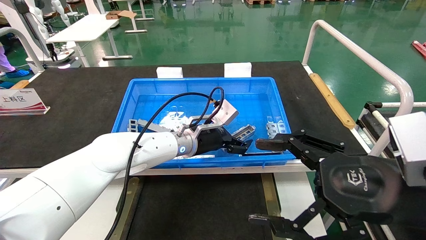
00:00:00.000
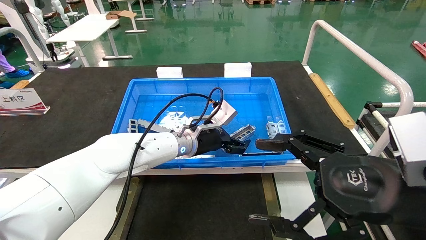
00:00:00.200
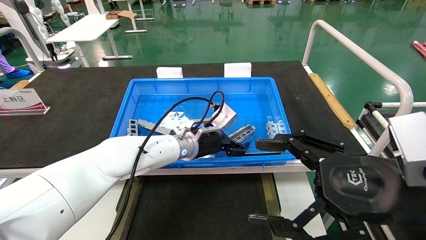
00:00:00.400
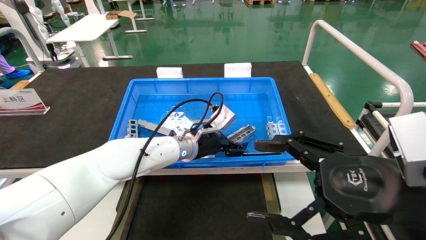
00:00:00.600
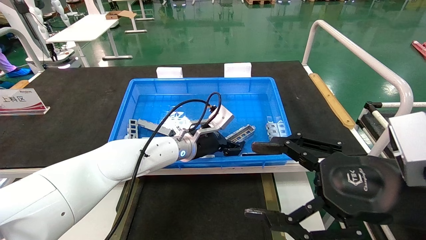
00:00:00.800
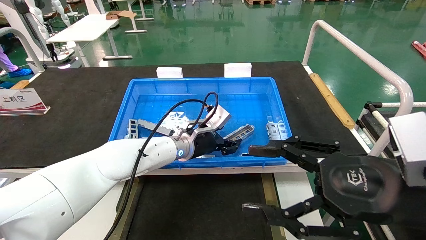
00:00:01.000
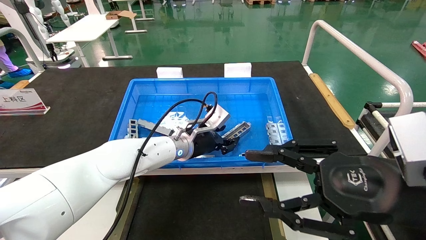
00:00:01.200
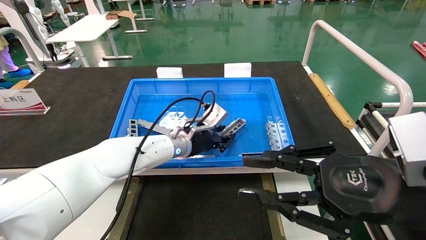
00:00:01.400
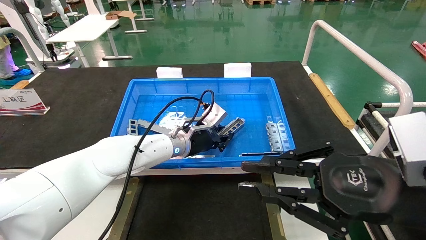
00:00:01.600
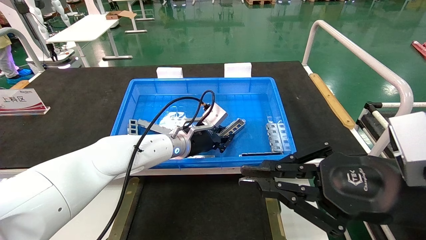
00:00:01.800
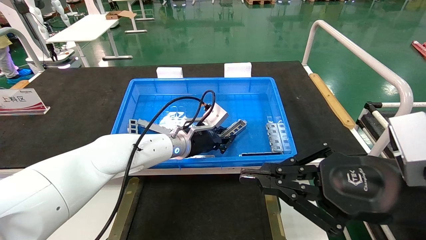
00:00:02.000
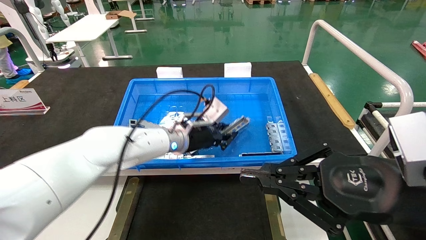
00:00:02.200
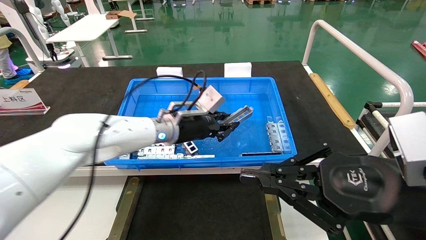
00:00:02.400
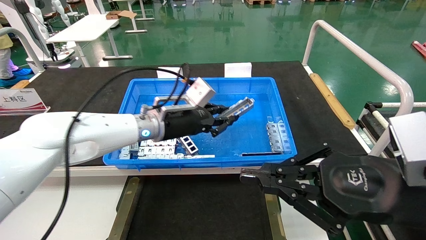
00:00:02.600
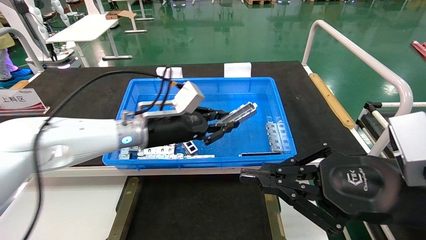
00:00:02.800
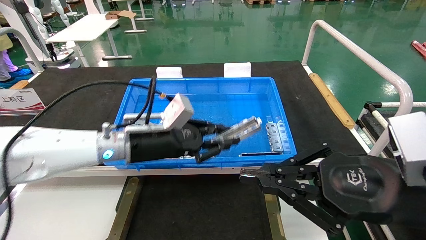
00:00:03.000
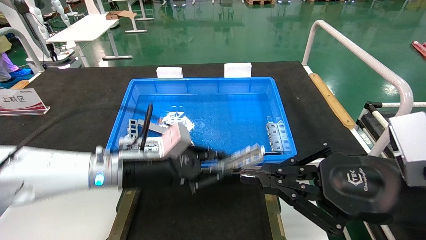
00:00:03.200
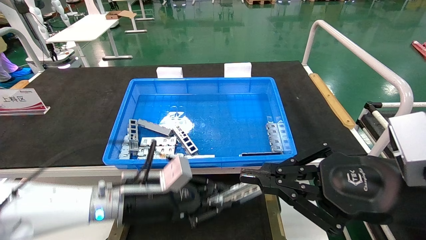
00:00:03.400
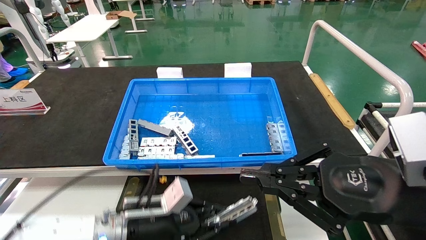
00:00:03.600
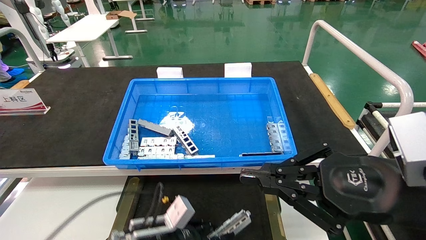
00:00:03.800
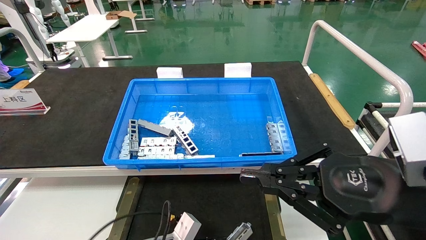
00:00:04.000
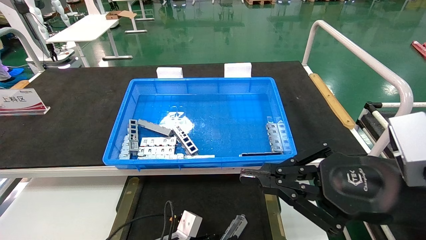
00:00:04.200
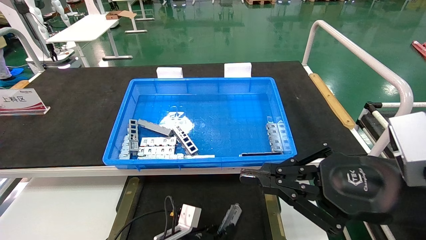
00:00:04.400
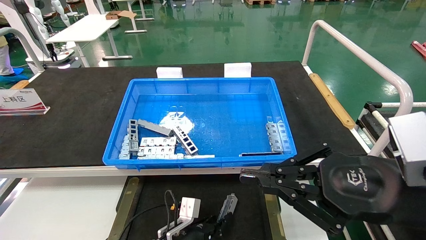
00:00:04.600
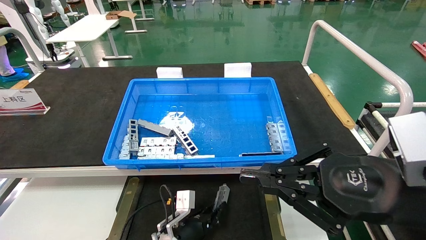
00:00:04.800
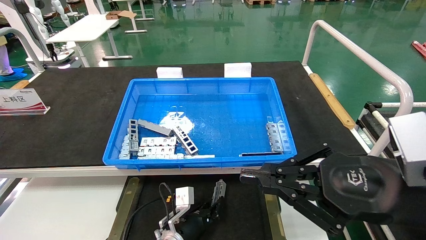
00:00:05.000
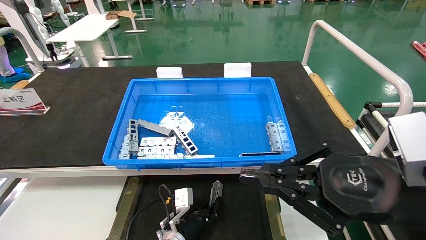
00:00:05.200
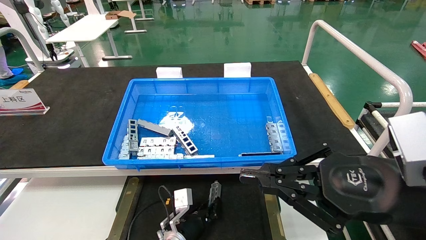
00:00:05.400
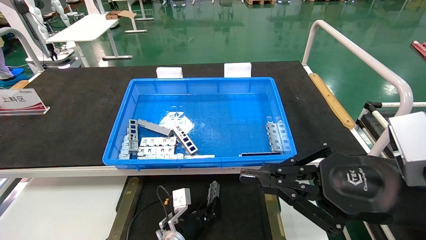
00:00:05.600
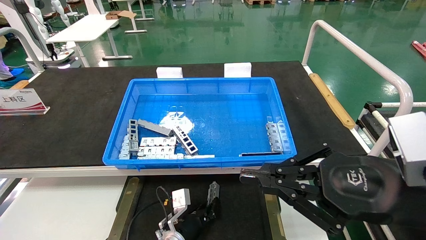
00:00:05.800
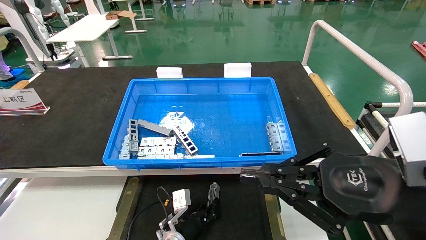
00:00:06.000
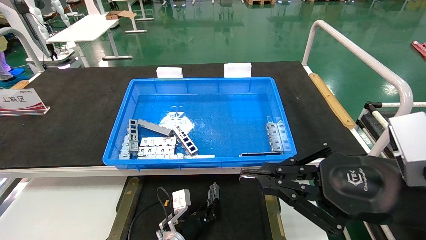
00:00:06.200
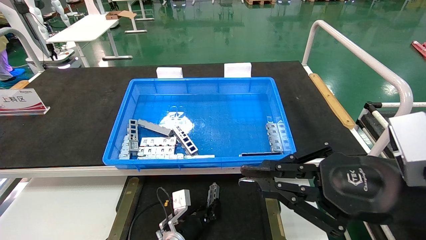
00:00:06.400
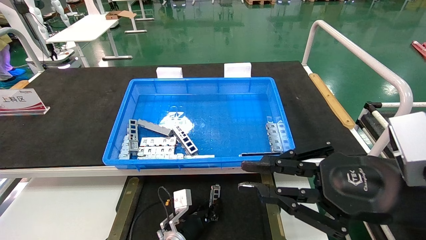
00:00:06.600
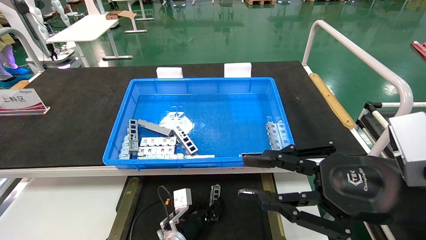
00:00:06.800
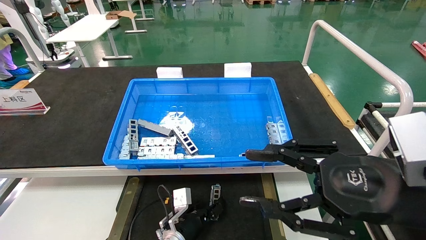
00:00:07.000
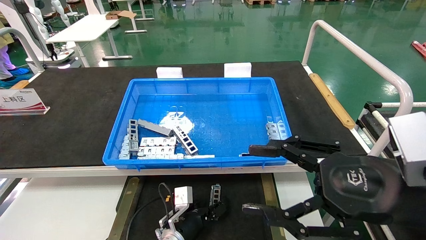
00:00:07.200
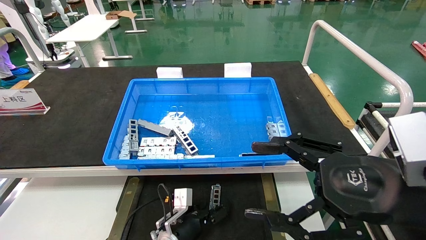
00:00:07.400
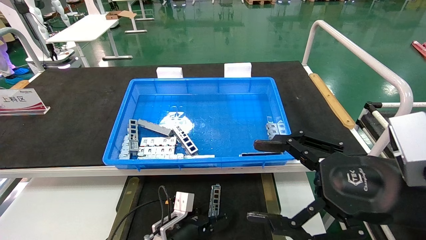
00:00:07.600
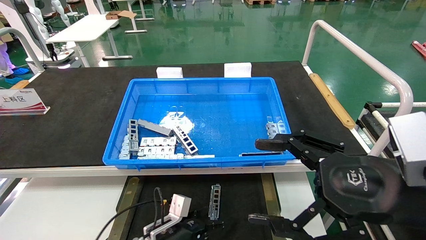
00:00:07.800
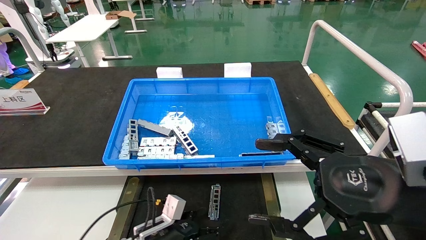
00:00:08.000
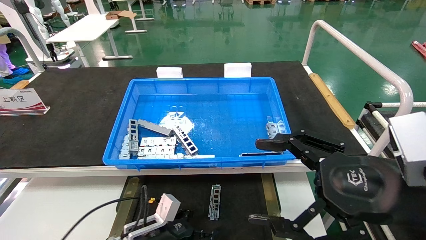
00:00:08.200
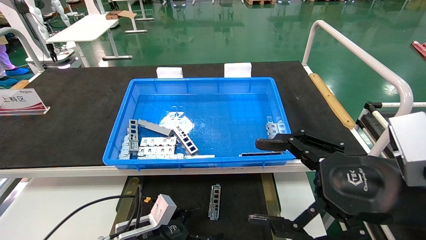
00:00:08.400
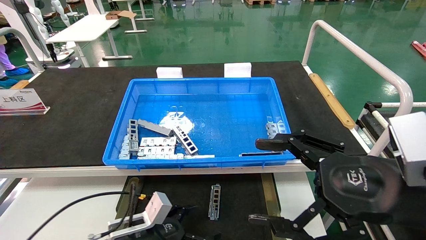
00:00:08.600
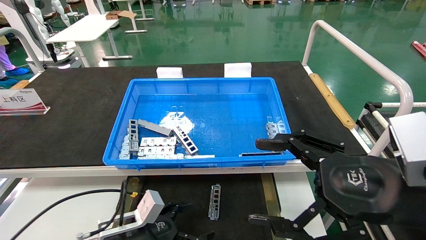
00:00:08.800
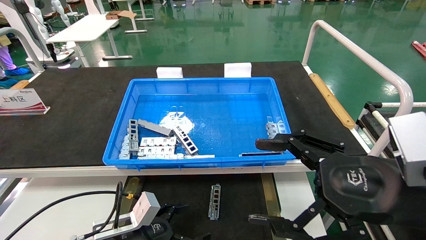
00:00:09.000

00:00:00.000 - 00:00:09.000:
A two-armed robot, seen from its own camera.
Task of the whole recording: Grasp the part with one hand and place it on the black container.
Step, 00:00:01.800 - 00:00:06.800: Place the front USB bracket into the box.
00:00:00.000 - 00:00:01.600: The right gripper closes; the left gripper closes its fingers.
00:00:01.600 - 00:00:03.000: The left gripper moves backward and to the left, approximately 15 cm.
00:00:03.000 - 00:00:04.400: The left gripper travels downward by about 25 cm.
00:00:04.400 - 00:00:06.000: The left gripper is displaced forward by about 5 cm.
00:00:06.000 - 00:00:07.600: The right gripper opens up. Meanwhile the left gripper opens.
00:00:07.600 - 00:00:09.000: The left gripper travels to the left, upward and backward by approximately 15 cm.
